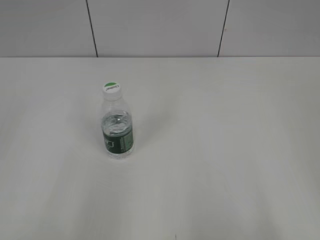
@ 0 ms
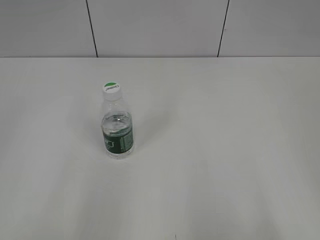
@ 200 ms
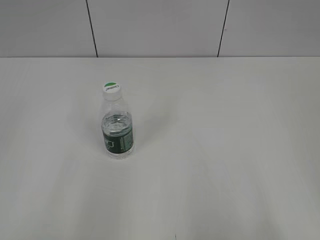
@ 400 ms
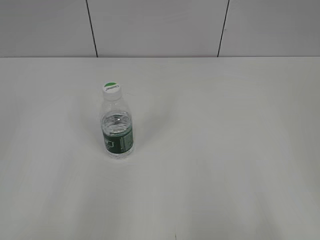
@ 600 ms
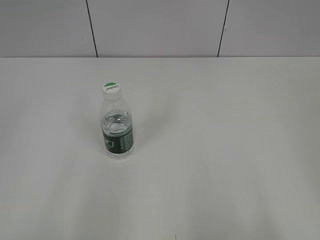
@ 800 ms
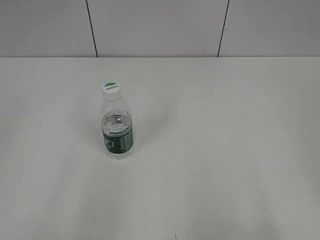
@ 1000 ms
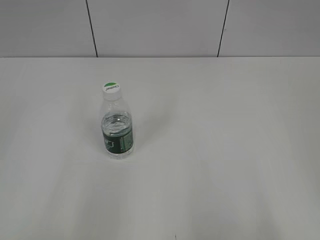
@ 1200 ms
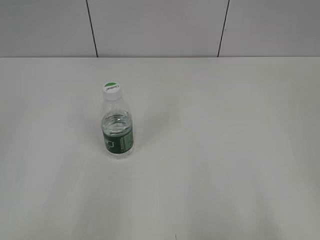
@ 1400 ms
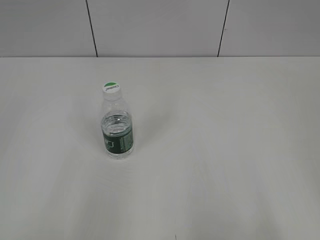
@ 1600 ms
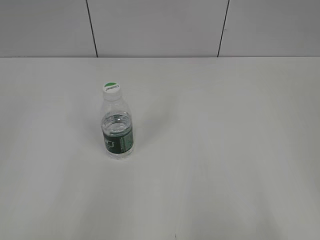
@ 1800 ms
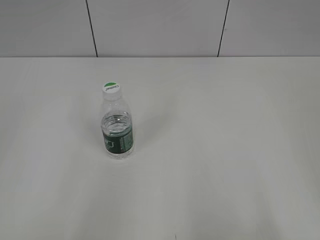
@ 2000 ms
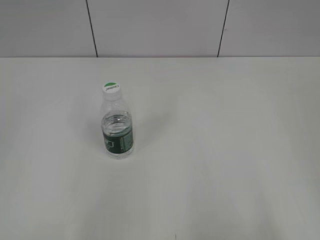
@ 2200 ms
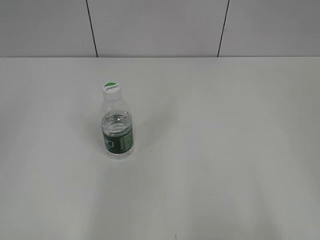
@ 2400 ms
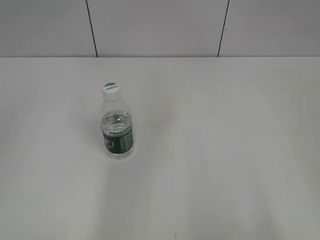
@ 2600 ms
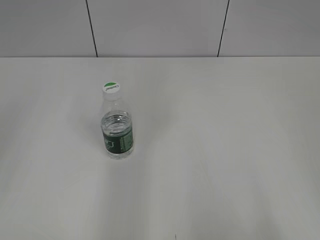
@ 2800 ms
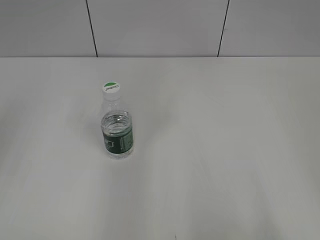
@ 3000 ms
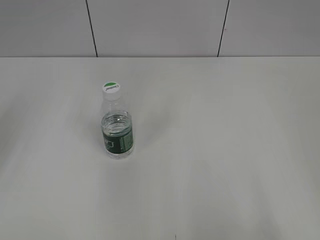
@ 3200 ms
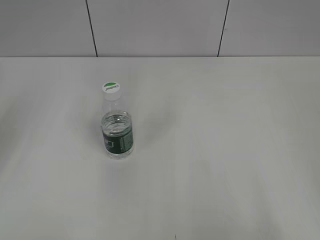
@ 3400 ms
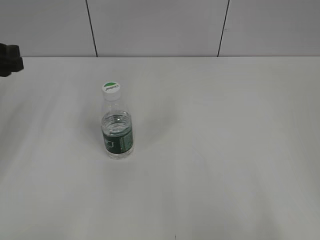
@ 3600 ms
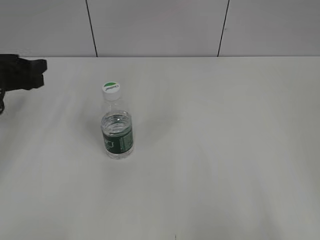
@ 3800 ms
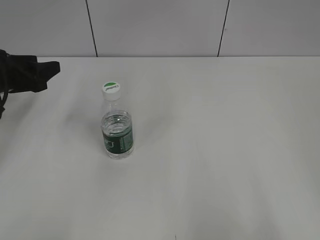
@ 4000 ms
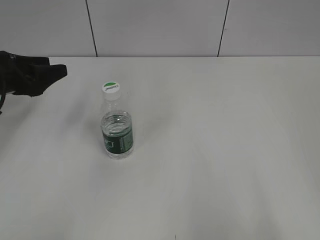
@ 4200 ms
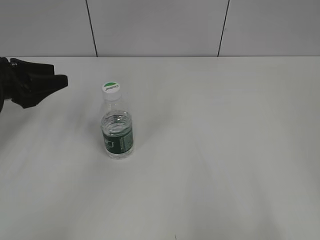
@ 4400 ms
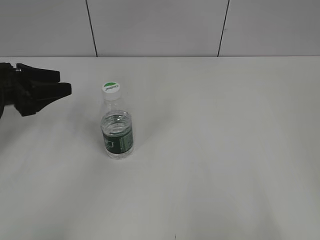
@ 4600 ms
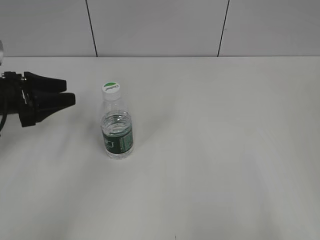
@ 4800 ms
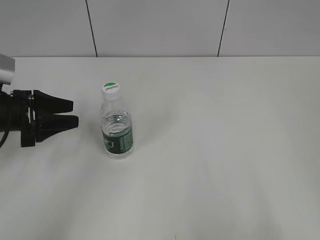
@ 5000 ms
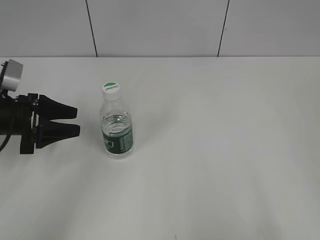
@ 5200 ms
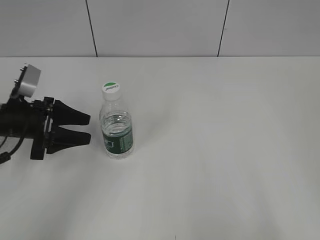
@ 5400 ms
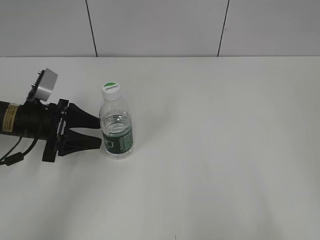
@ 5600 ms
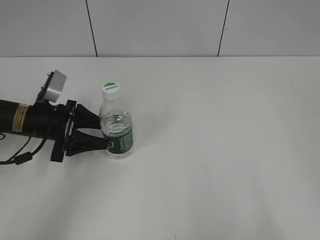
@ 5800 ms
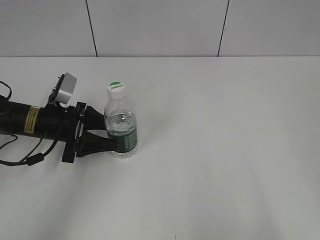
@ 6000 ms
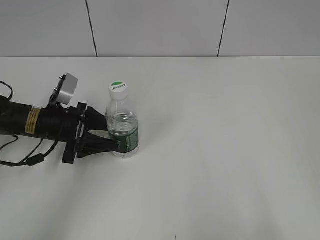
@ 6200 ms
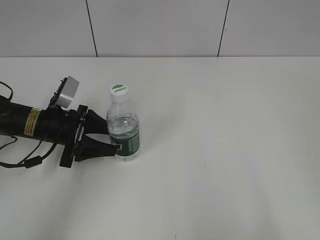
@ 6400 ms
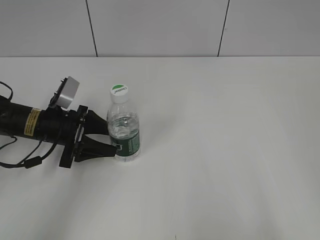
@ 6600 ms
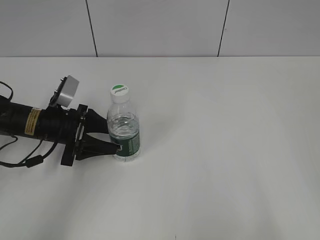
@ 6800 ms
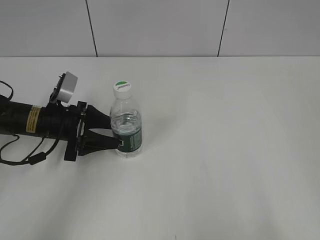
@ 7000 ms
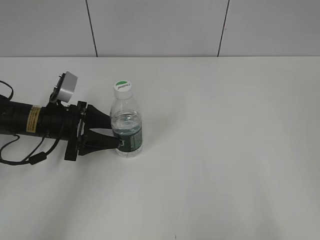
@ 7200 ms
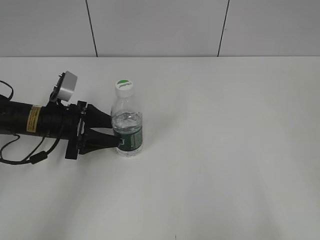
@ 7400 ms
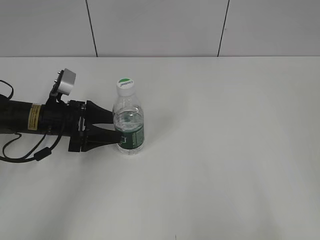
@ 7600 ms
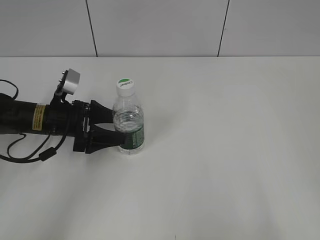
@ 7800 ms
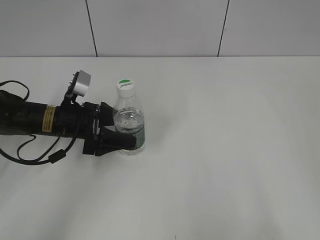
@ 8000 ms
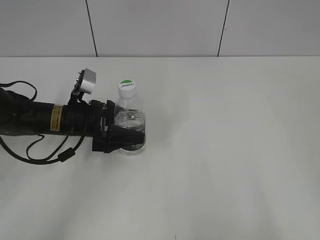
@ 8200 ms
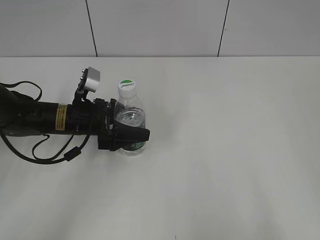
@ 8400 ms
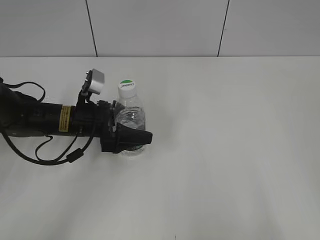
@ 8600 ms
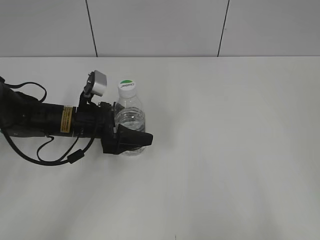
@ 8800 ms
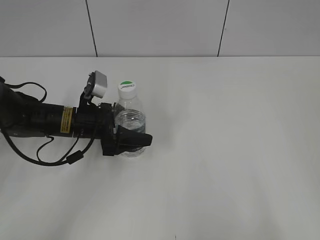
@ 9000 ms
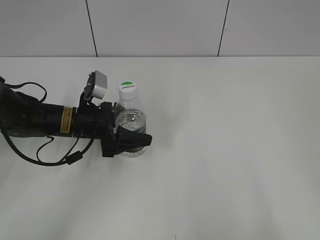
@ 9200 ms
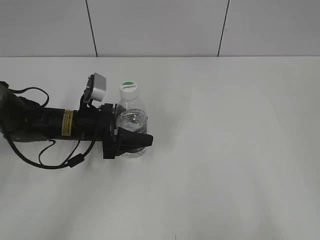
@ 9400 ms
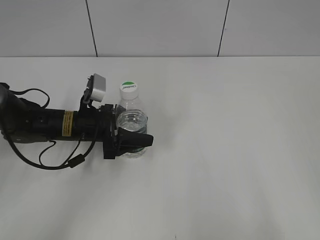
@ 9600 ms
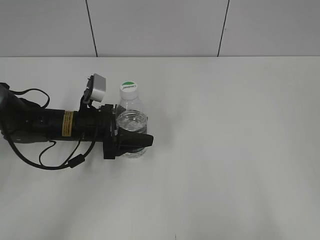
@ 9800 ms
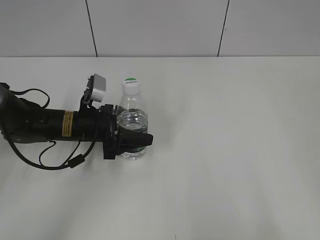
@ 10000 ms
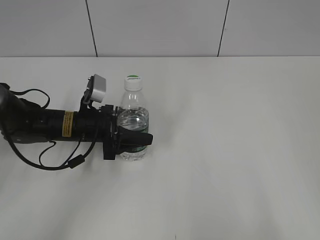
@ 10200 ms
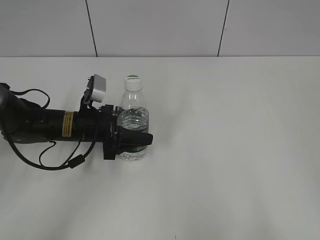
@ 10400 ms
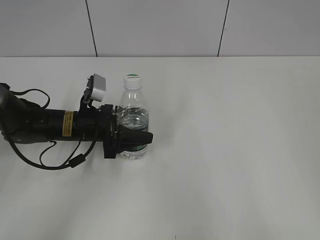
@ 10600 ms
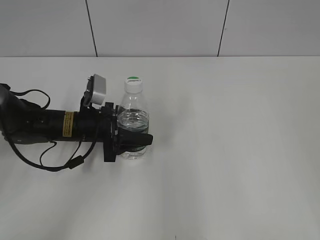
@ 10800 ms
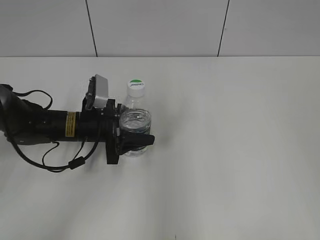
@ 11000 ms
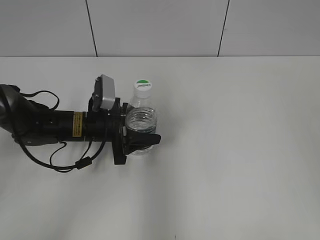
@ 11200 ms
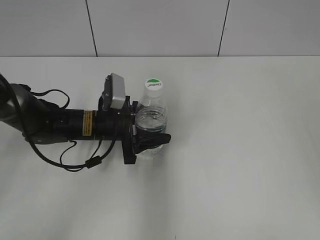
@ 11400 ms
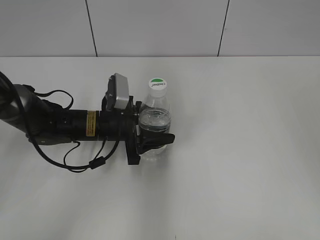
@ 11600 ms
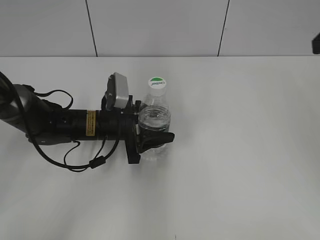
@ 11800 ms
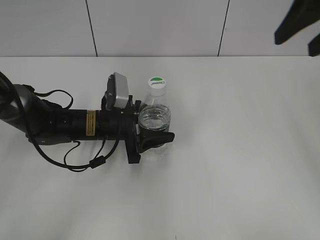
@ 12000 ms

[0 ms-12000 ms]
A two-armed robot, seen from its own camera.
Step, 0 ms to 11800 ms: Grasp the bottle and move it to the center of the table with the left gripper.
3000 ms to 4400 ms: The left gripper heads downward and forward, covering some 20 cm.
4400 ms to 6000 ms: The left gripper moves downward and to the right, about 10 cm.
6000 ms to 7600 ms: The left gripper opens.
7600 ms to 9000 ms: The left gripper moves to the right, about 5 cm.
9000 ms to 10400 ms: The left gripper closes its fingers.
10400 ms to 12000 ms: The right gripper is displaced forward by some 25 cm.

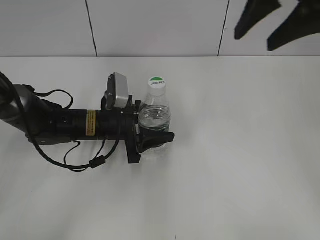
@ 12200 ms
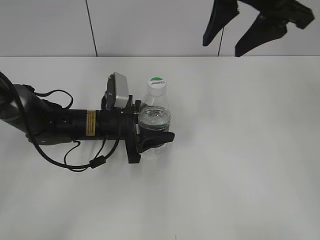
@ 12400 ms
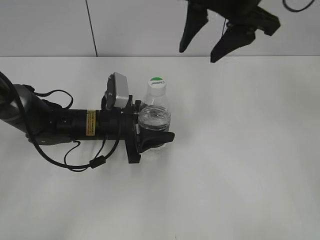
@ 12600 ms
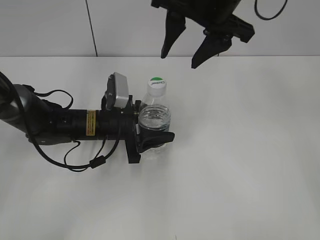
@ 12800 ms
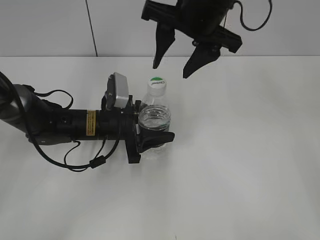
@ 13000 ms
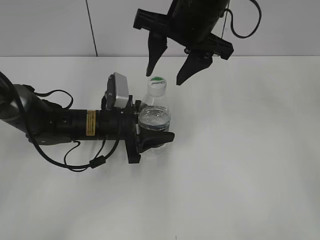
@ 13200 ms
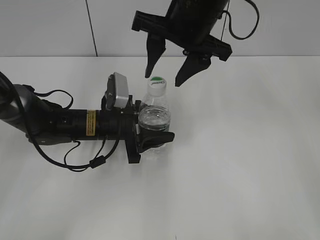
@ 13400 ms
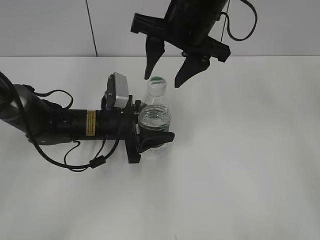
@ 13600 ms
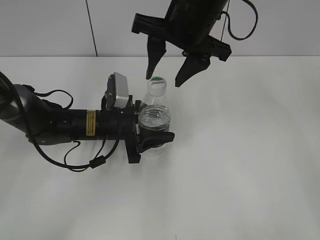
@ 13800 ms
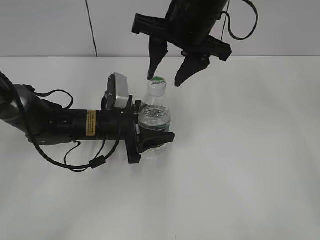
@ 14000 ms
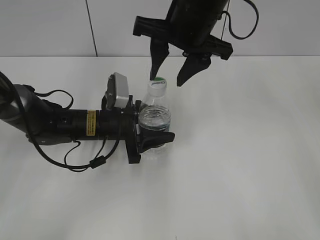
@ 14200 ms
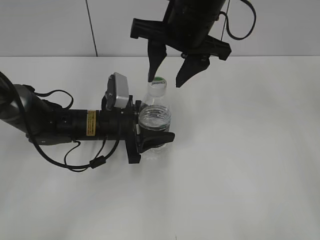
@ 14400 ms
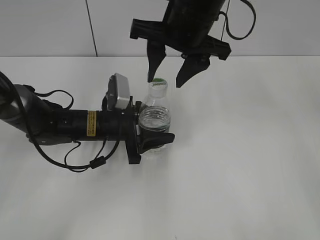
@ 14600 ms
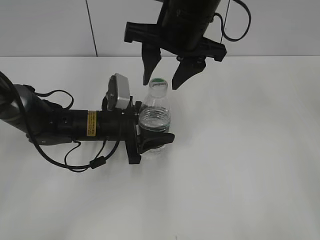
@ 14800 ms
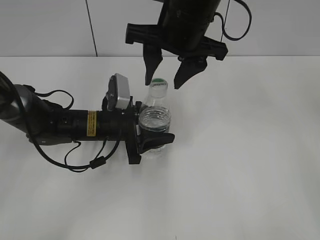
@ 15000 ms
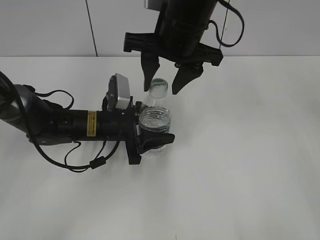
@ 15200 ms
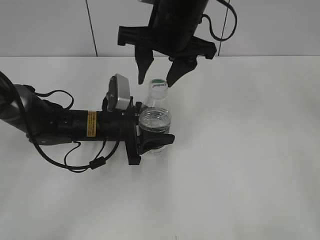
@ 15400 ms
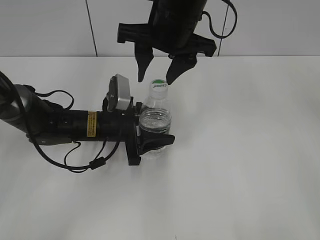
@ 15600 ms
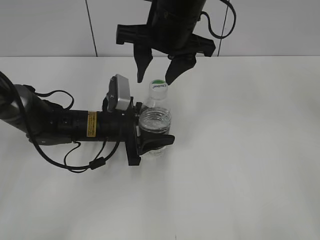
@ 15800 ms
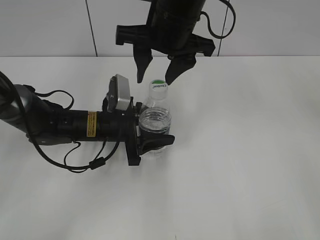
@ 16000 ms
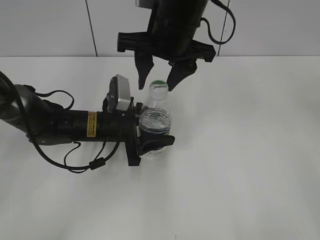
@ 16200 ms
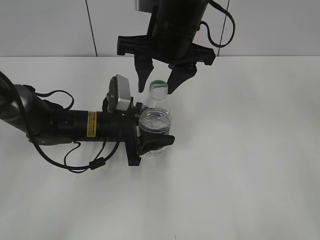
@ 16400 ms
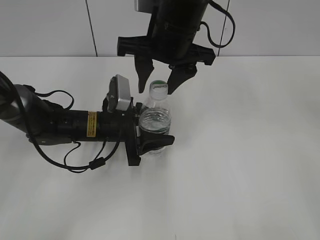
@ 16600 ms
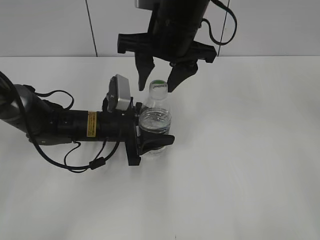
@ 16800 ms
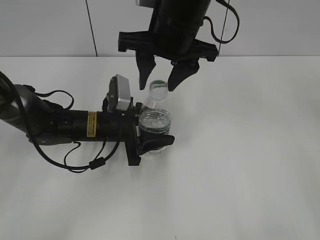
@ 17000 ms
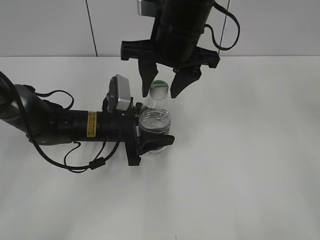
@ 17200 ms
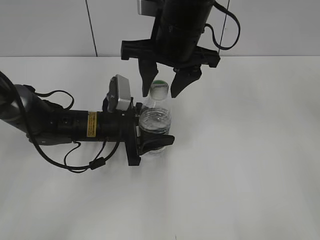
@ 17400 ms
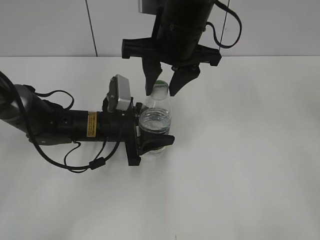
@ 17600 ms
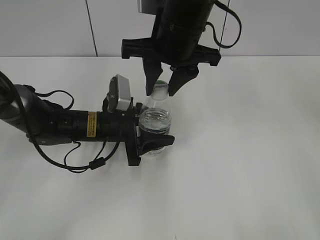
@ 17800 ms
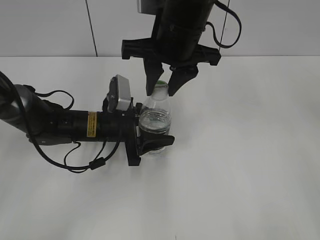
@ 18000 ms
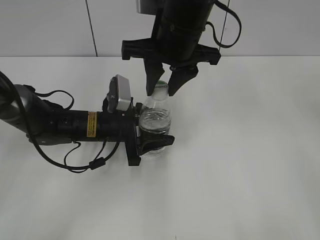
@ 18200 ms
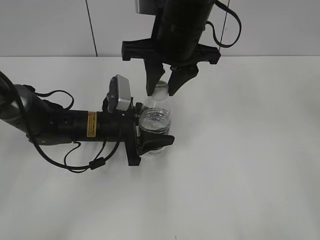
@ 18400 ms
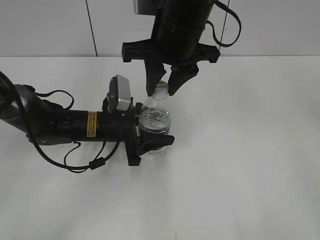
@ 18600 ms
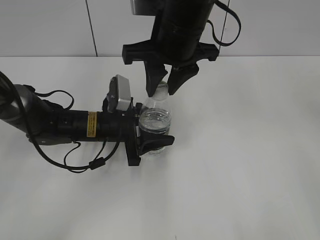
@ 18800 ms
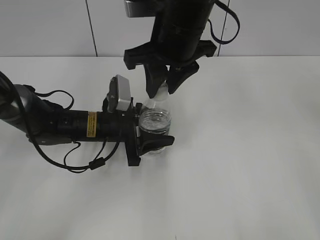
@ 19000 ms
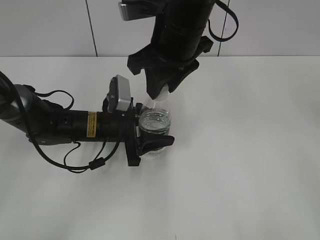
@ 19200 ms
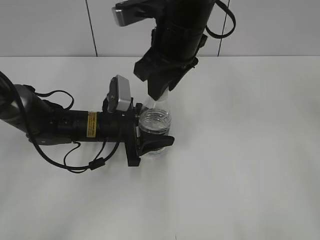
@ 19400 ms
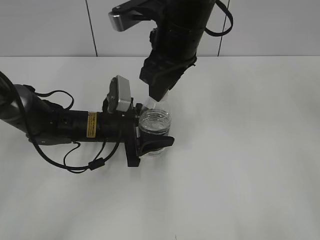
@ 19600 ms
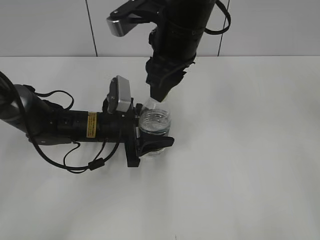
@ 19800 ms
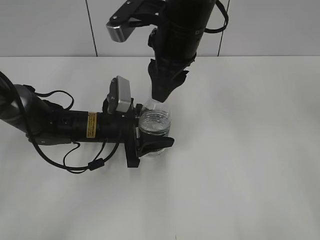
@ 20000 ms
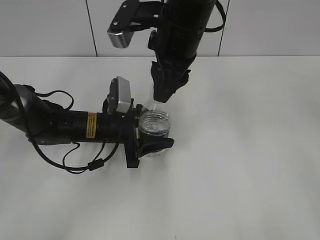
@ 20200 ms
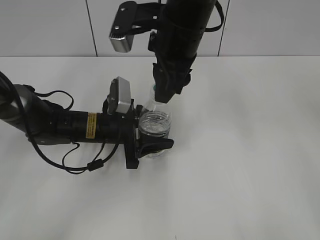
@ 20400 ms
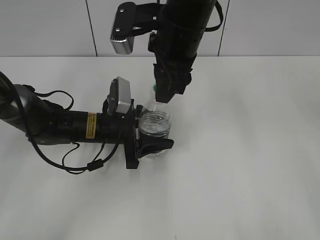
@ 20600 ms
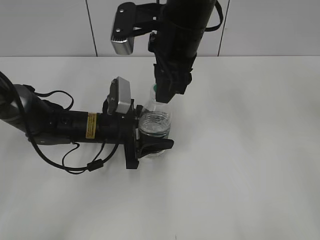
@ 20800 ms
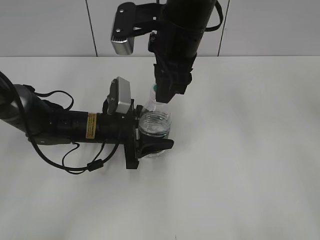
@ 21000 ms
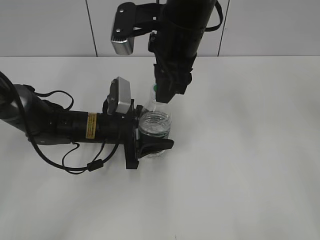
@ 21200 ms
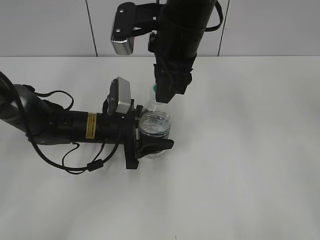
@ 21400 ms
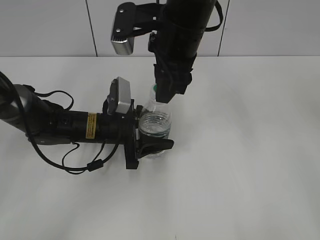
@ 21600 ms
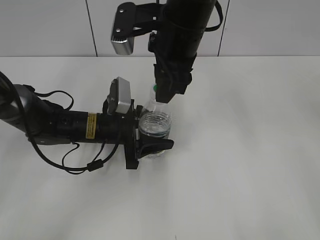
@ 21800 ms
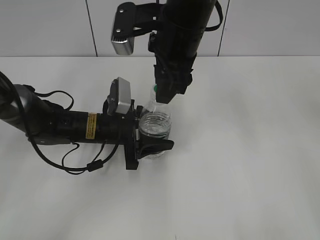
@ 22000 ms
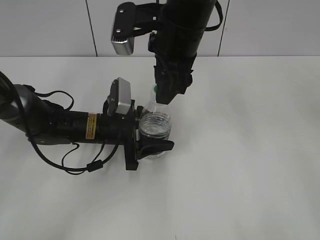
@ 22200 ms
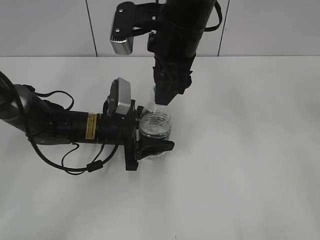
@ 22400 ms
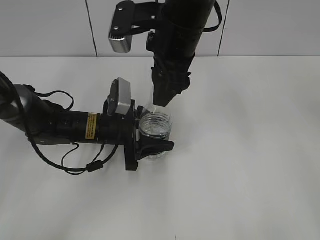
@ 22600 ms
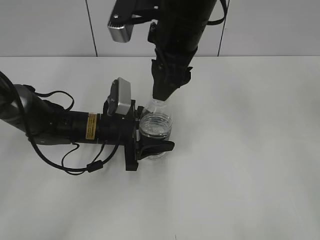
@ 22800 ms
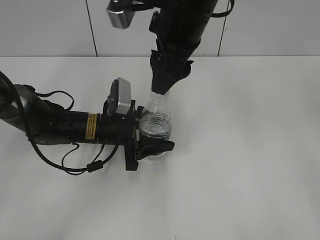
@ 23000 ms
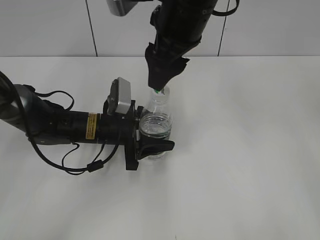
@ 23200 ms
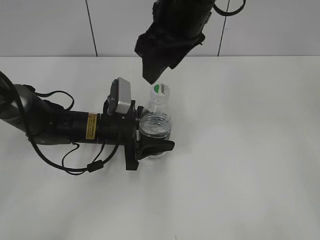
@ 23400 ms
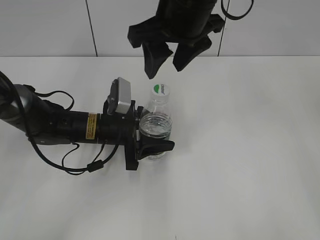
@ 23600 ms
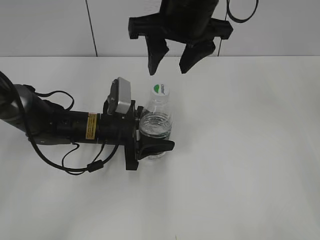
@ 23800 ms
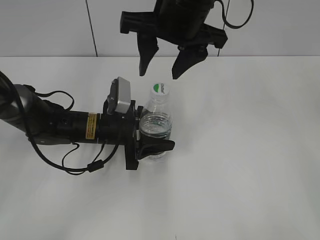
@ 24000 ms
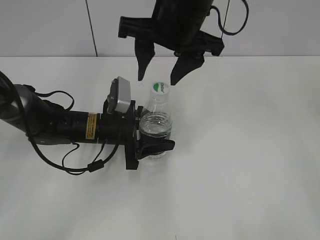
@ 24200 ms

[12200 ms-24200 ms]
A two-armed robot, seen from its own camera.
12200 ms to 13800 ms: The right gripper goes some 15 cm to the left and downward.
13800 ms to 15200 ms: The grippers stay close to where they were, moving slightly.
15200 ms to 16600 ms: Both grippers stay put.
16600 ms to 18200 ms: The right gripper closes up.
21200 ms to 22600 ms: The right gripper opens its fingers.
